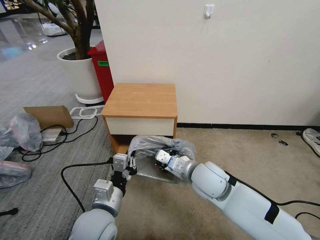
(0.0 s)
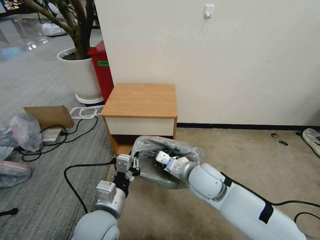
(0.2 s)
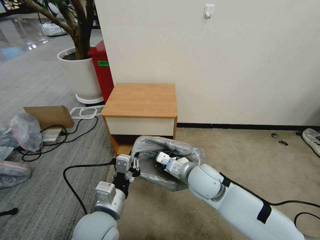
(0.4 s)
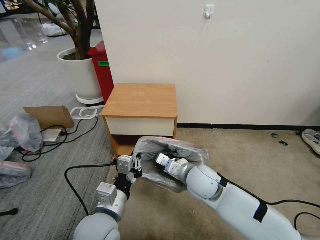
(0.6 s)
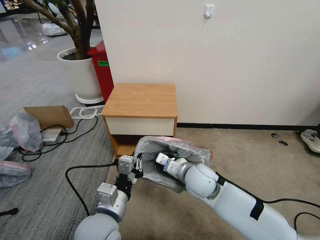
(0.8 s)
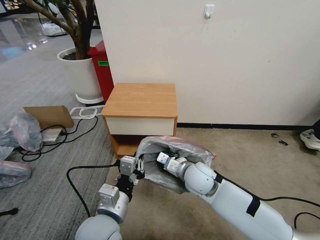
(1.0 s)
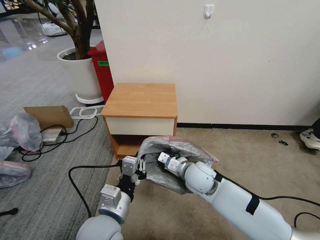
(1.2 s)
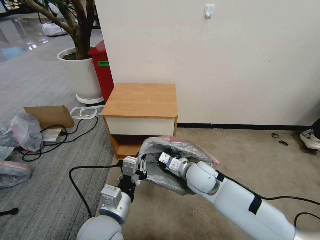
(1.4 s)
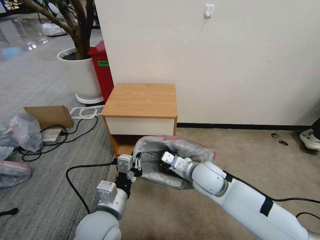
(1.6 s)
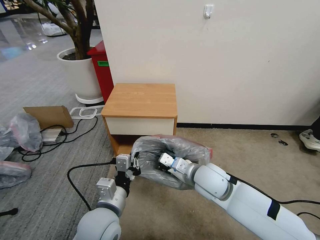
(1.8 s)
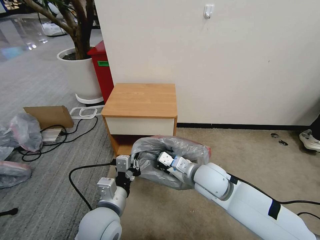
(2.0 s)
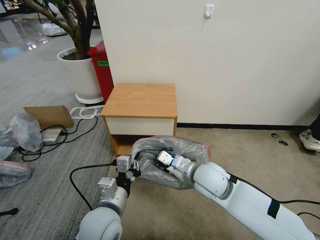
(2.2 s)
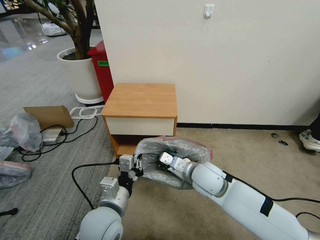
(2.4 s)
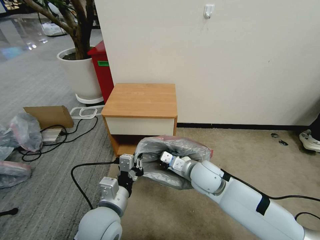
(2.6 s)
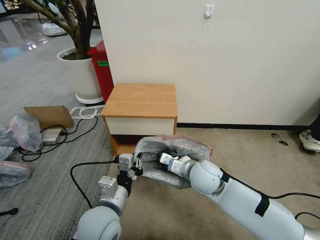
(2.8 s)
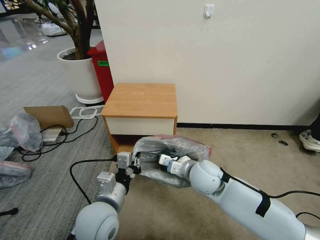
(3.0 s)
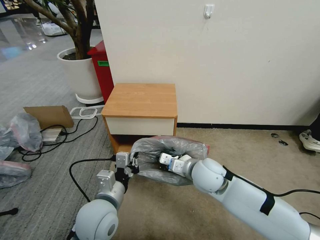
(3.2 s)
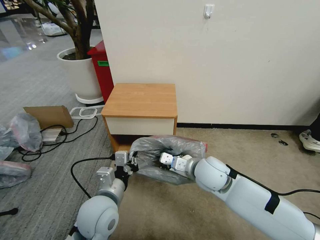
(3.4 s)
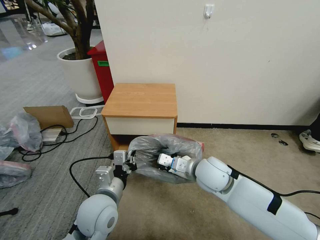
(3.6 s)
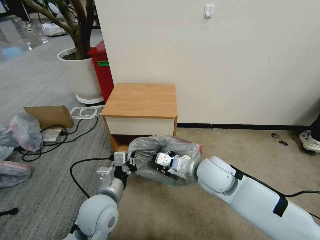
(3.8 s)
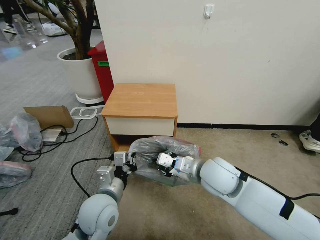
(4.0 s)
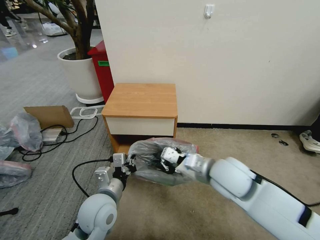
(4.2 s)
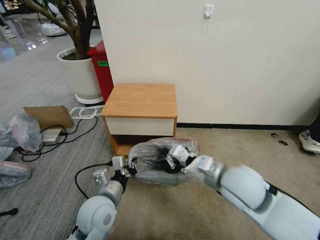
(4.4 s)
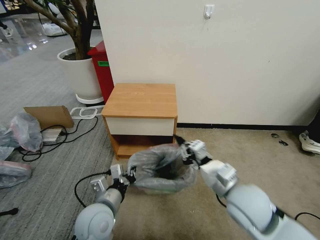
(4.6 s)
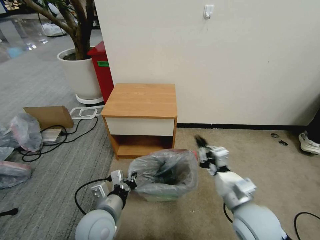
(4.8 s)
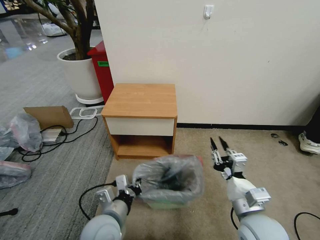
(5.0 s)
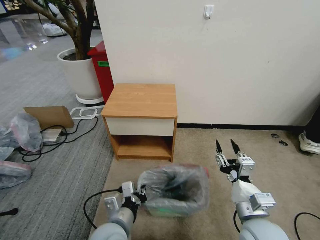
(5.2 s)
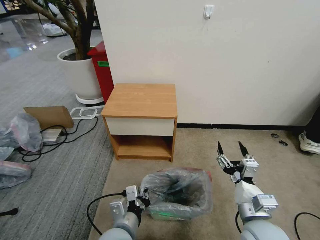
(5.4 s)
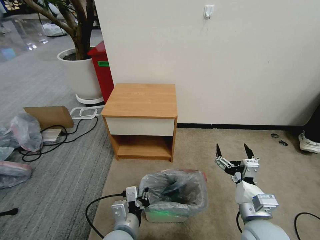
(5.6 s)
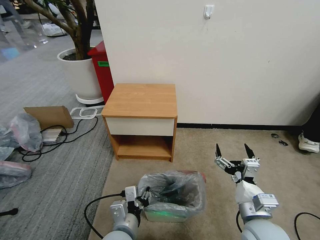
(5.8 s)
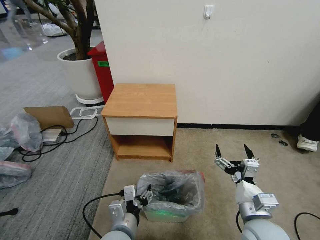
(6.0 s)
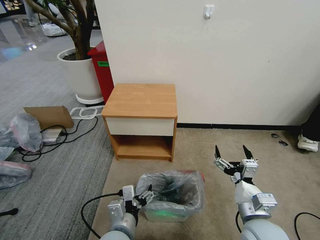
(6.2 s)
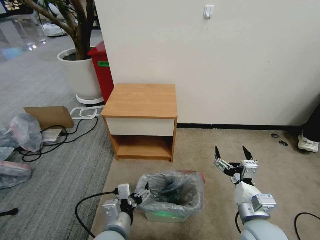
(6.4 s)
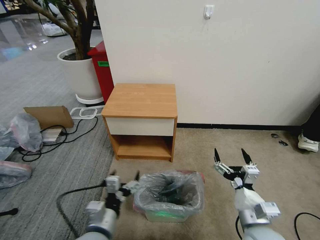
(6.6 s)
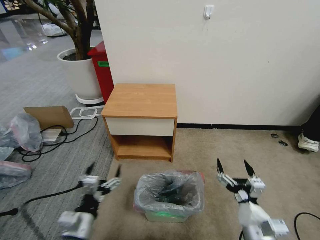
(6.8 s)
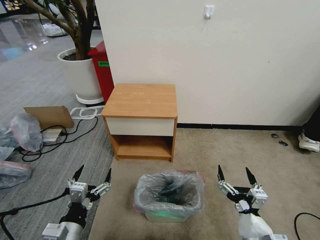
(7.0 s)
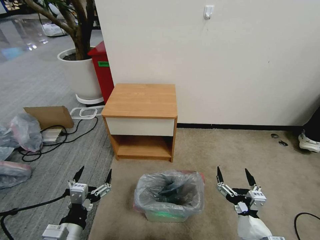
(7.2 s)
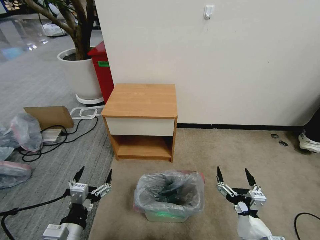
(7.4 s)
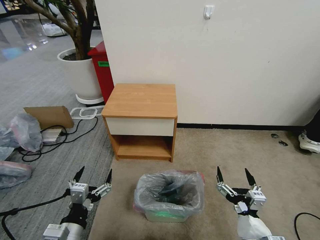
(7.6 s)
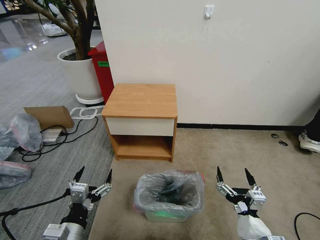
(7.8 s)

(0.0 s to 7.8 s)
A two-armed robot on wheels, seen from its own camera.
Task of the whole recording: Pick up the garbage bag from the table and place it over the trash can.
1.6 s - 3.2 s: The grippers stay close to where they were, moving slightly.
3.2 s - 4.6 s: The right gripper heads backward and to the right, covering about 10 cm.
4.6 s - 6.2 s: The right gripper heads downward and backward, covering about 10 cm, and opens its fingers; the left gripper goes about 10 cm backward and to the right, and opens its fingers.
6.2 s - 7.8 s: The right gripper moves backward, some 10 cm. Meanwhile the left gripper heads to the left, covering some 15 cm.

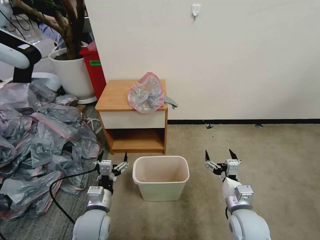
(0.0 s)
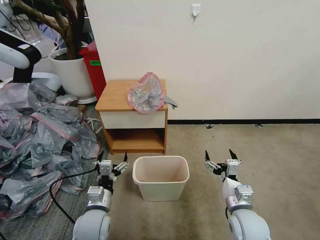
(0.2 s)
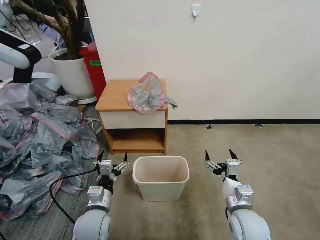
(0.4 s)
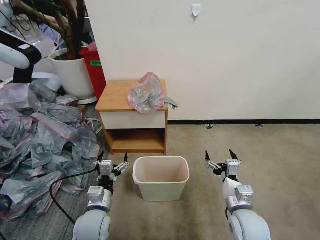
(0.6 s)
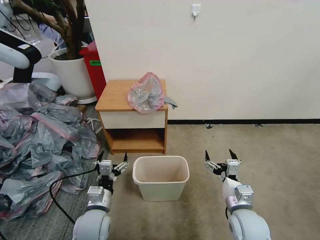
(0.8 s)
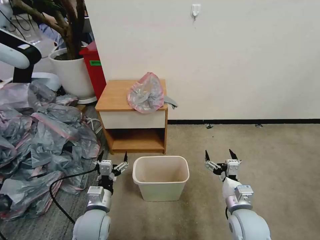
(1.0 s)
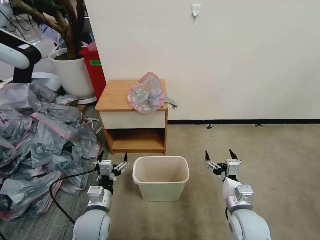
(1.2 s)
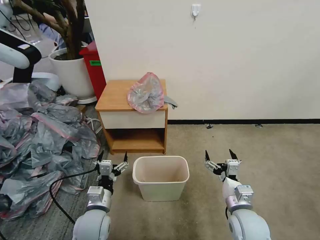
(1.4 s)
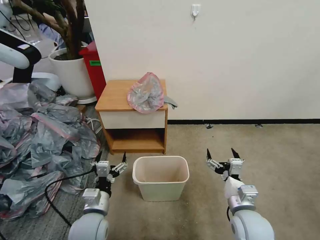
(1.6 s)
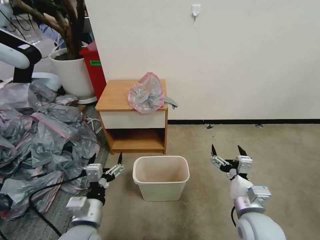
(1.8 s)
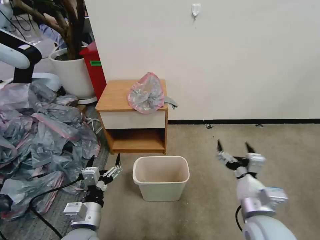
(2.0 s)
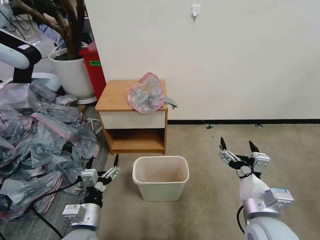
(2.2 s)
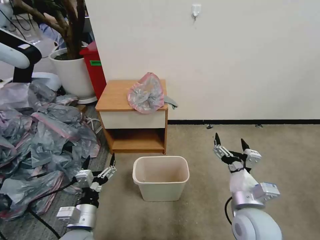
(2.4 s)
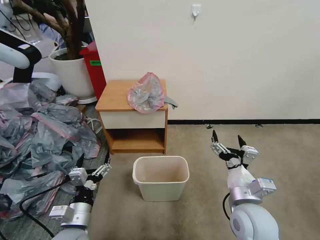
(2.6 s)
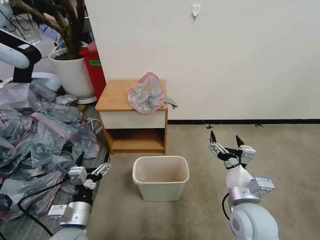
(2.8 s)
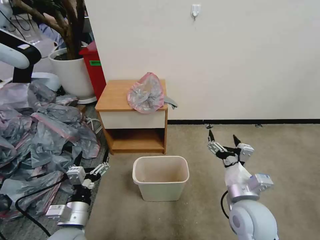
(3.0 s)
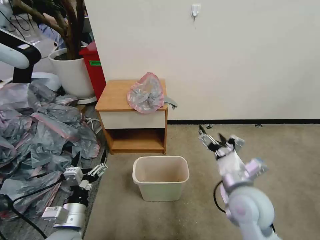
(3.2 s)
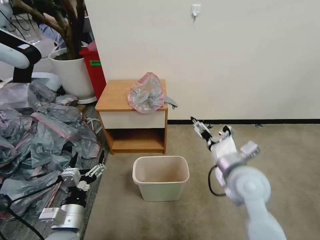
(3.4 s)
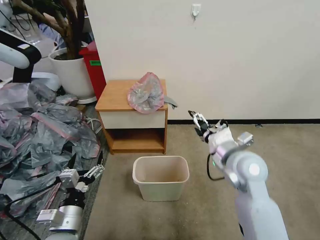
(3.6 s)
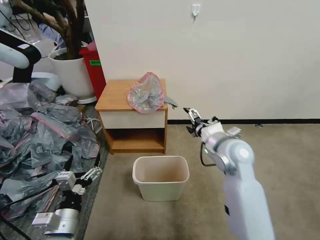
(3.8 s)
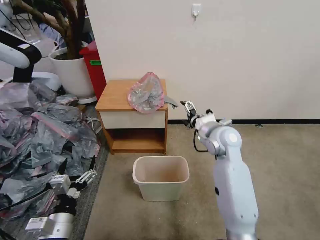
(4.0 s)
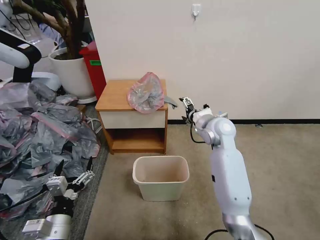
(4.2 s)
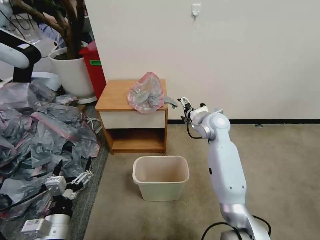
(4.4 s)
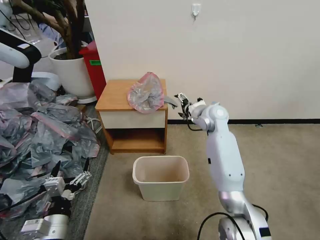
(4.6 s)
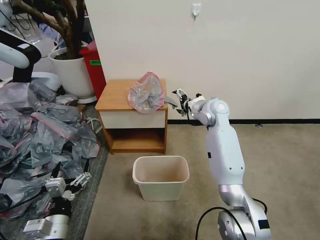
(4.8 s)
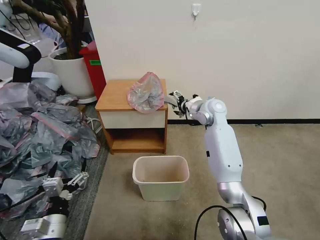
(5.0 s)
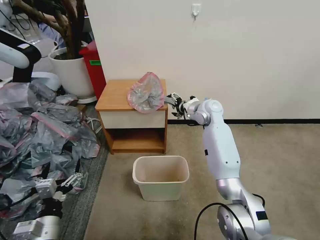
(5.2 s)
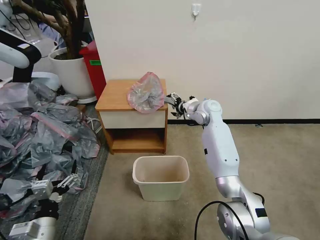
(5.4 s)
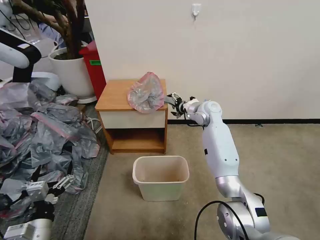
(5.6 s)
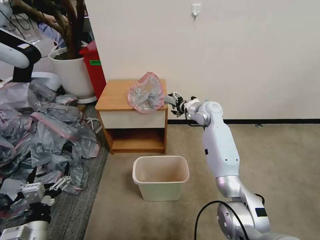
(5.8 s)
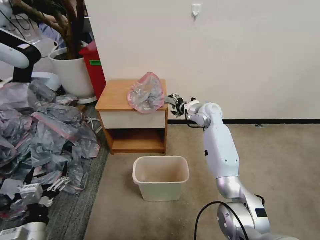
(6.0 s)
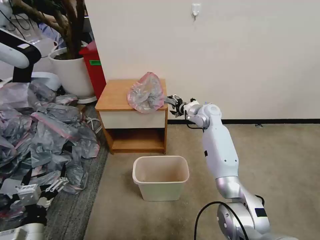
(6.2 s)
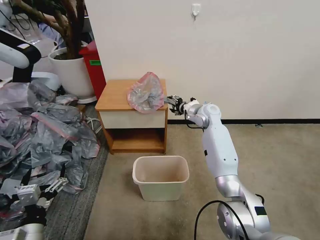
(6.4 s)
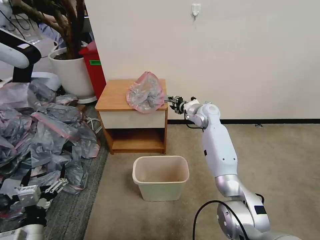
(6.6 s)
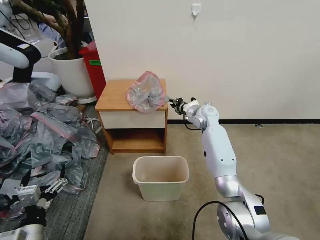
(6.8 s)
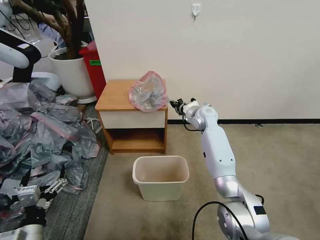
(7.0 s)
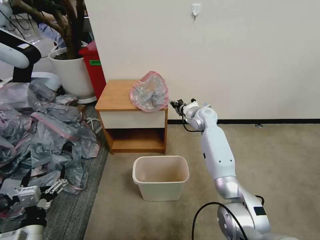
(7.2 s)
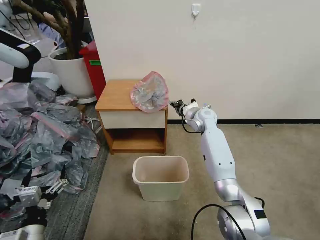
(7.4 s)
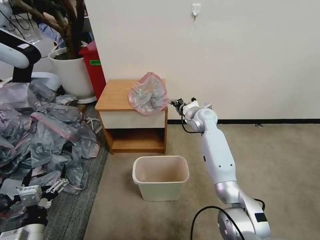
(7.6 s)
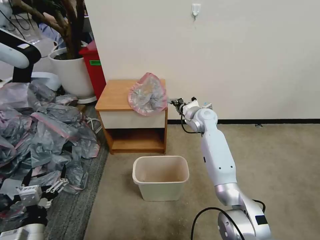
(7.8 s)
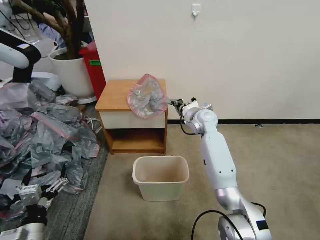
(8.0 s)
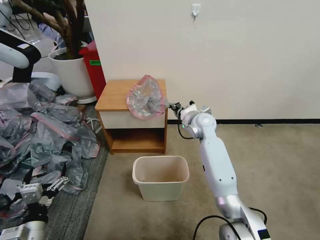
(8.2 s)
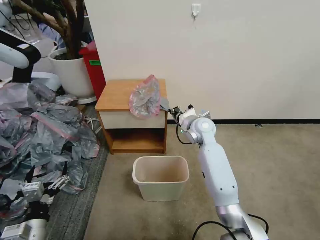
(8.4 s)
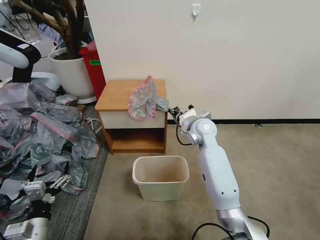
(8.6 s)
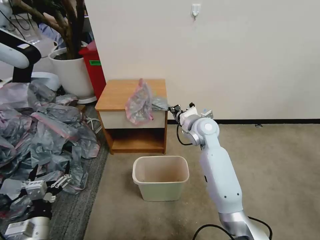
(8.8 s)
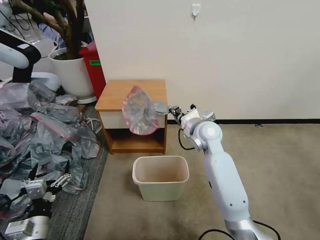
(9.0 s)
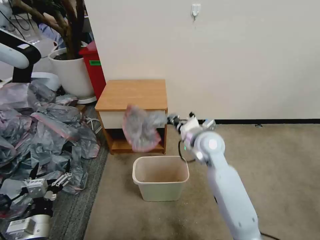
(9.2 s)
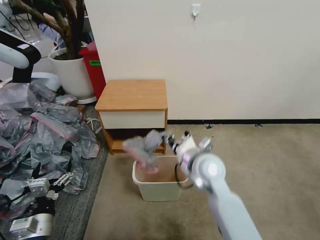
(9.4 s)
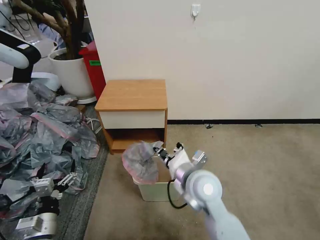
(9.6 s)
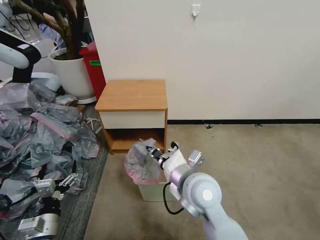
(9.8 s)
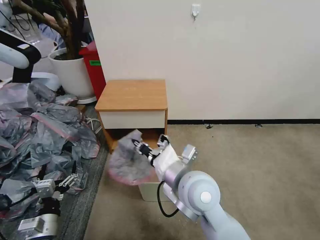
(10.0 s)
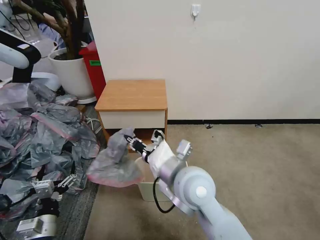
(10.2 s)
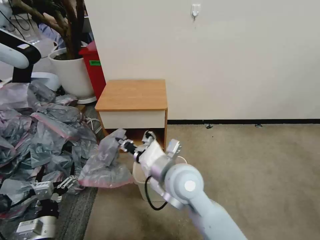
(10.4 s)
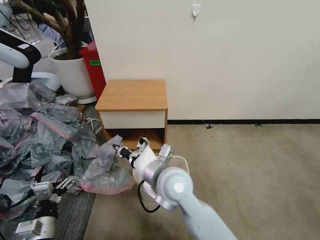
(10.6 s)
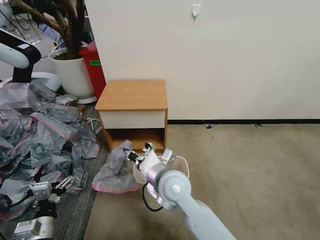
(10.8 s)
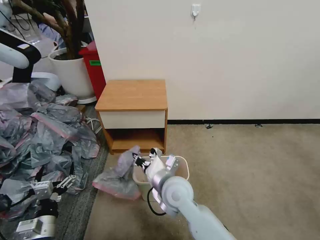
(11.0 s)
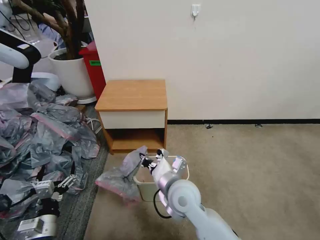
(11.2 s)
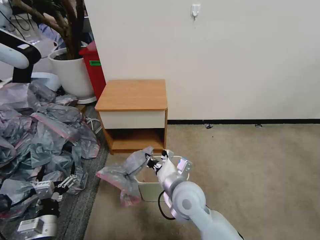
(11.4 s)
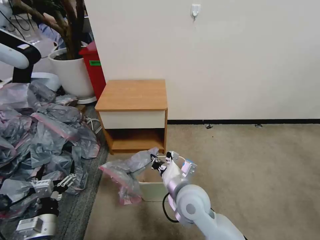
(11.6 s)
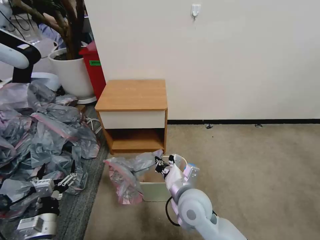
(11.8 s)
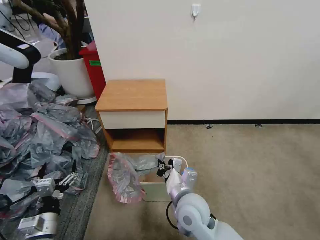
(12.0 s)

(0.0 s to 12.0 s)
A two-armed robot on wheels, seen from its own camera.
Task of the whole recording: Pick up the garbage bag from the table and place it over the trash can.
1.6 s - 3.0 s: The left gripper ends up approximately 5 cm from where it was, while the right gripper travels upward by approximately 10 cm.
3.0 s - 4.4 s: The left gripper ends up approximately 5 cm from where it was, while the right gripper moves forward, about 30 cm.
4.4 s - 6.0 s: The left gripper changes place by roughly 5 cm. The right gripper is displaced forward by approximately 5 cm.
6.0 s - 7.6 s: The right gripper closes.
7.6 s - 9.0 s: The right gripper moves backward, some 10 cm.
9.0 s - 10.4 s: The right gripper moves backward and to the left, roughly 20 cm.
10.4 s - 12.0 s: The right gripper is displaced downward by approximately 10 cm.

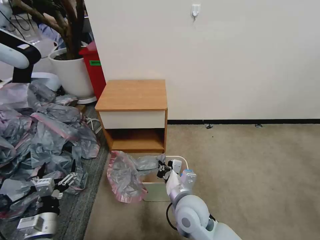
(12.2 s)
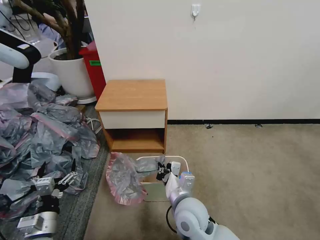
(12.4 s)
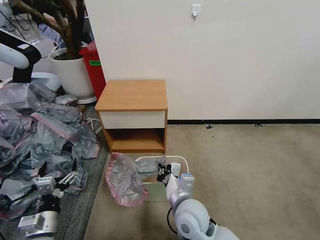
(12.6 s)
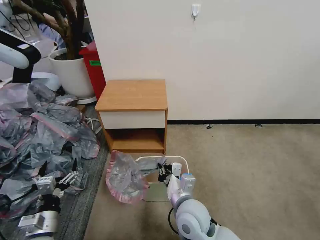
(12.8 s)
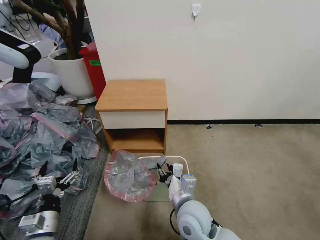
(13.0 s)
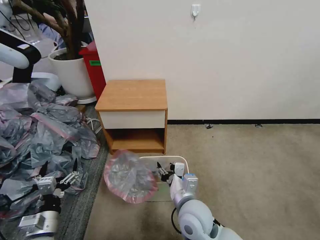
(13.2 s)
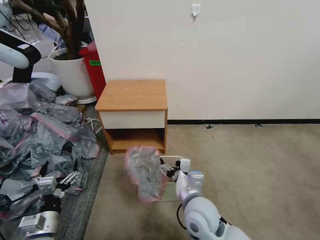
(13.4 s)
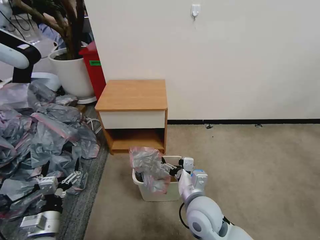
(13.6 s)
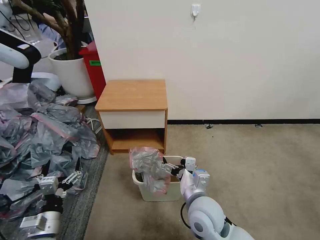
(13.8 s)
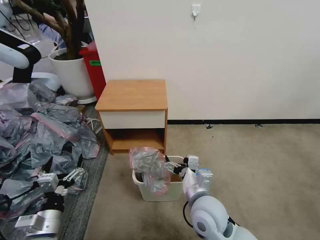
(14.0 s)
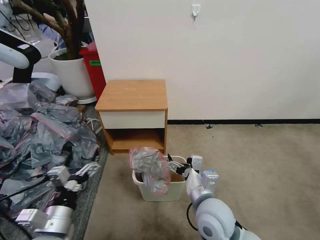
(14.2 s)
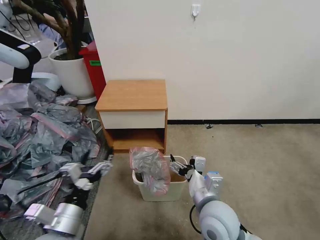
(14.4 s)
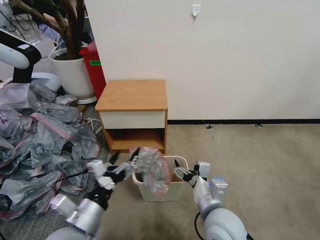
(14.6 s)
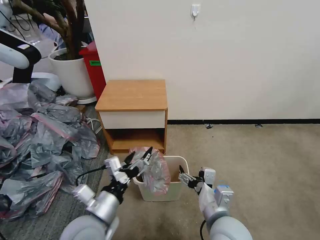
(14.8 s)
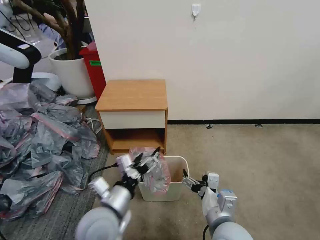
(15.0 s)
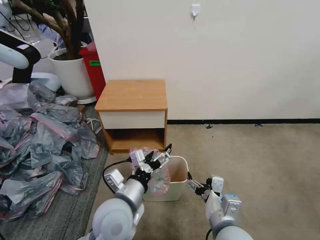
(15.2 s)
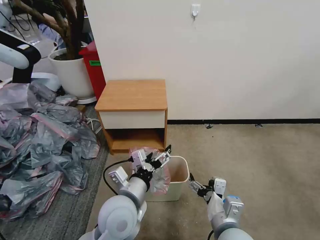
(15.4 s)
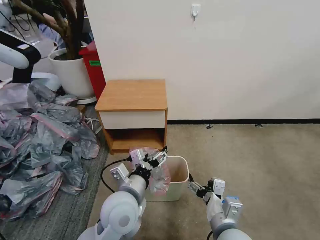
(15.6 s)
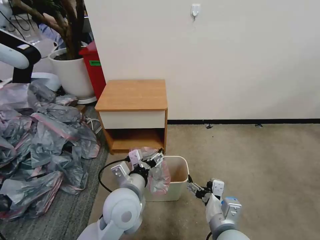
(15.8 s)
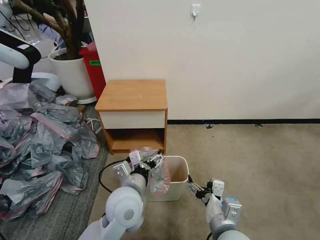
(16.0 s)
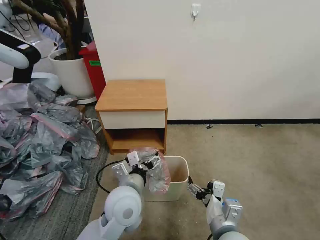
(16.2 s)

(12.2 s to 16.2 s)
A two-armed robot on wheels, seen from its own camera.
Task of the whole recording: Pick up the garbage bag from the table and place it over the trash can.
12.2 s - 13.6 s: The right gripper opens.
13.6 s - 14.8 s: The left gripper heads to the right and upward, covering roughly 15 cm; the right gripper goes approximately 5 cm backward.
14.8 s - 16.2 s: The left gripper travels to the right and forward by approximately 10 cm.
